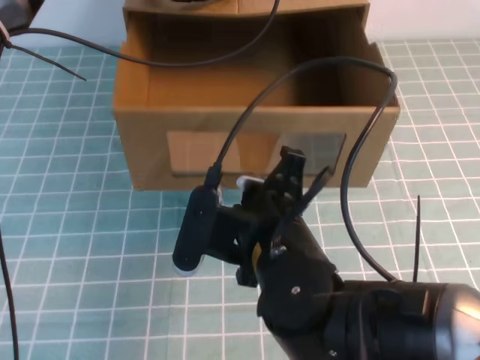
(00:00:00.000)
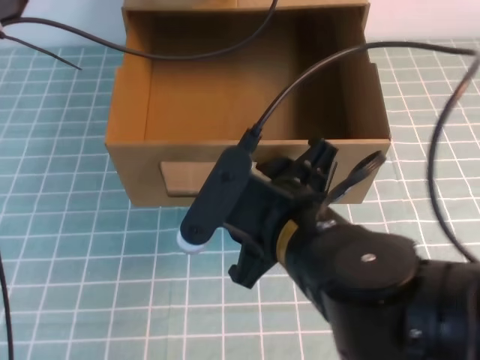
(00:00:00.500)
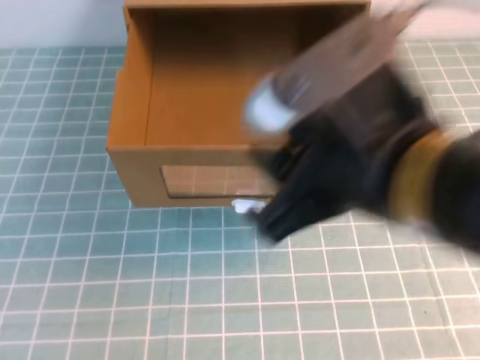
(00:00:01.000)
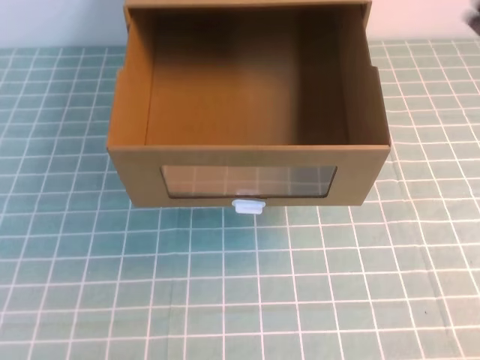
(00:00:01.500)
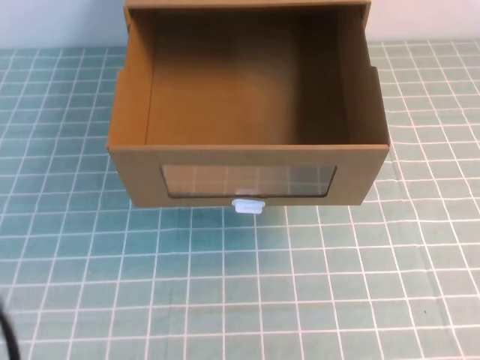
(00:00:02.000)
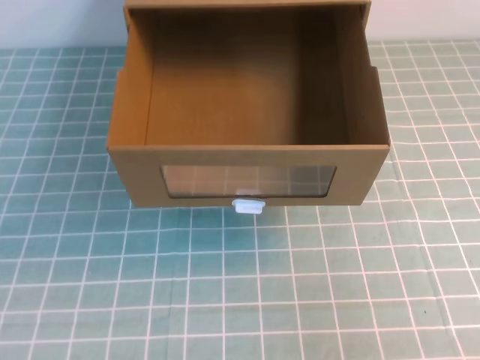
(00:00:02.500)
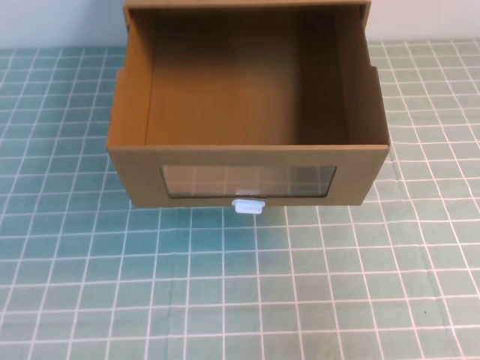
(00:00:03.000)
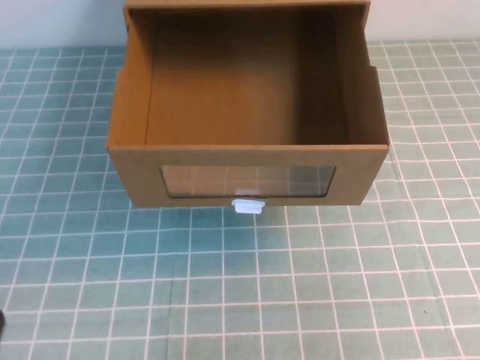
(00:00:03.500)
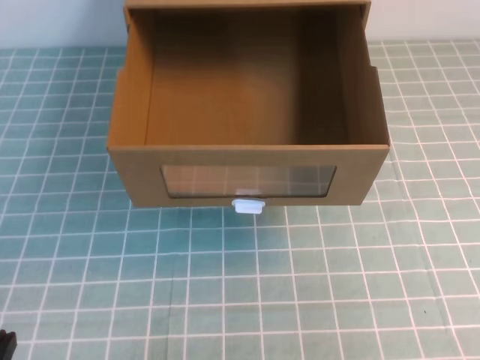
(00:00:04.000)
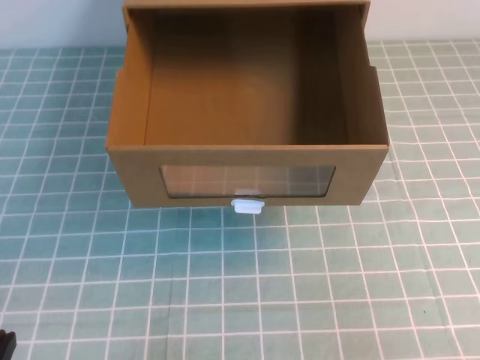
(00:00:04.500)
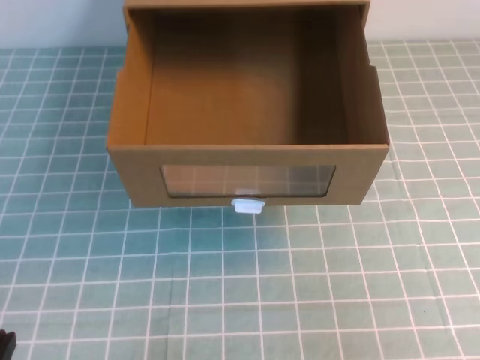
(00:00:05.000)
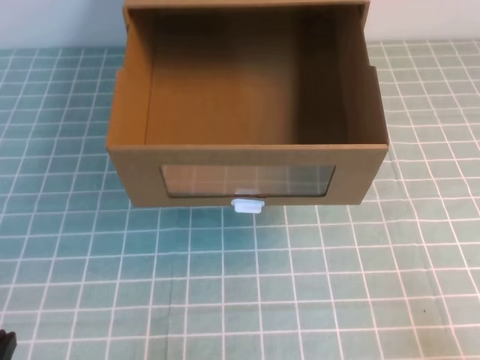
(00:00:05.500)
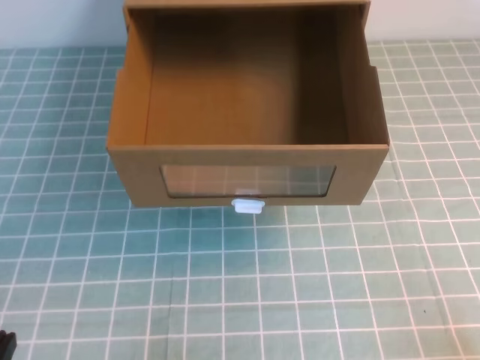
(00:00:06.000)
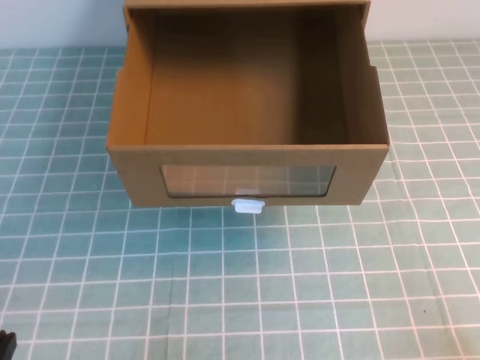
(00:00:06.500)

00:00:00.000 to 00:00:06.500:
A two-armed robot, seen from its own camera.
Task of the whole recording: open the shoebox on the cyan tablecloth.
Step, 00:00:00.000 to 00:00:06.500: Open the shoe box.
00:00:00.000 to 00:00:02.000: The right gripper goes roughly 35 cm to the right, upward and backward, and opens, then closes again. Meanwhile the left gripper travels backward and to the left by about 40 cm.
00:00:02.000 to 00:00:04.500: The right gripper moves downward, approximately 10 cm; the left gripper is displaced downward by about 30 cm.
